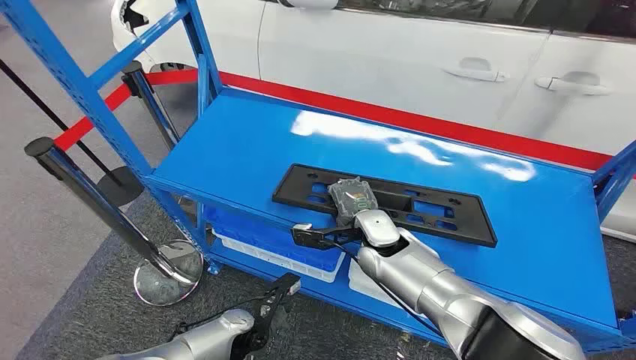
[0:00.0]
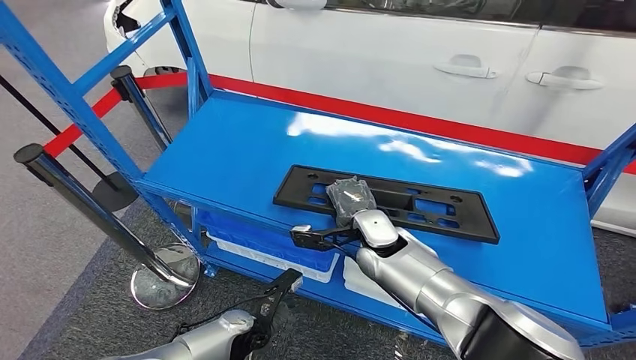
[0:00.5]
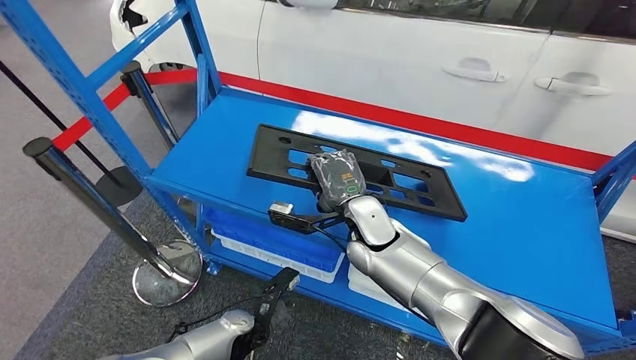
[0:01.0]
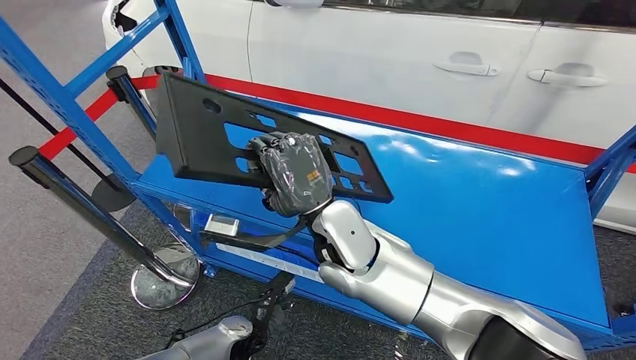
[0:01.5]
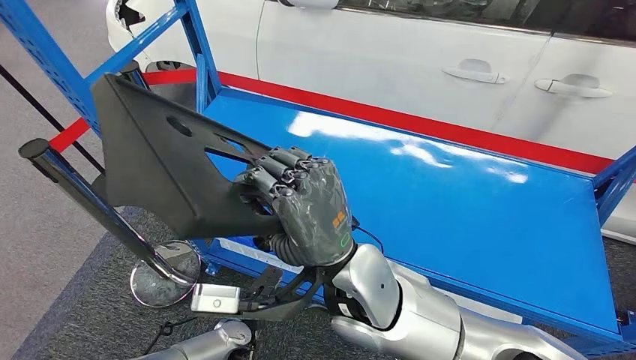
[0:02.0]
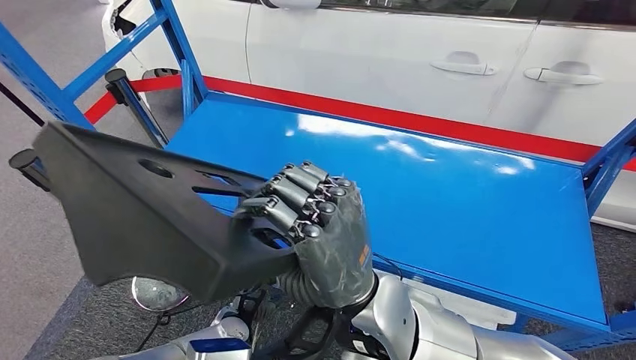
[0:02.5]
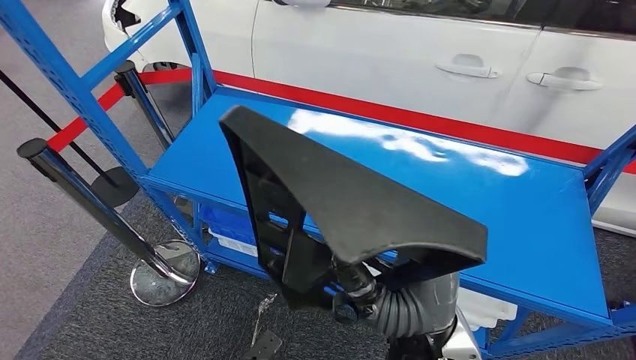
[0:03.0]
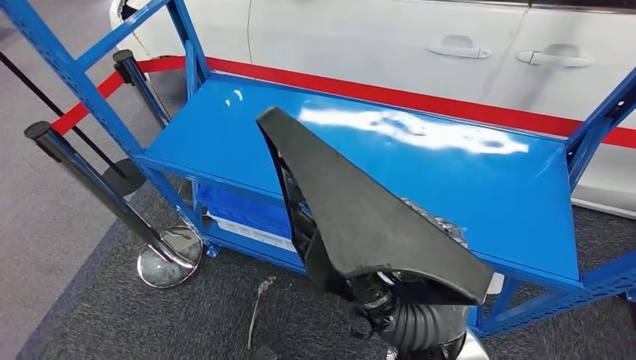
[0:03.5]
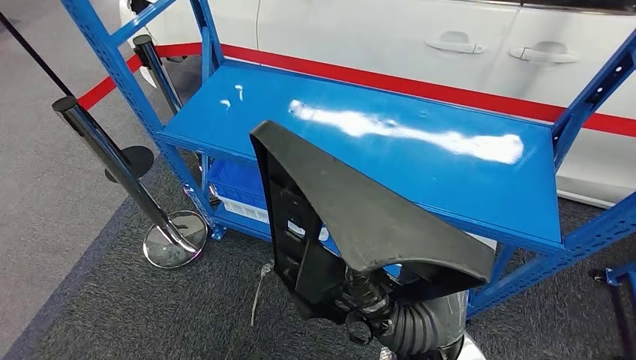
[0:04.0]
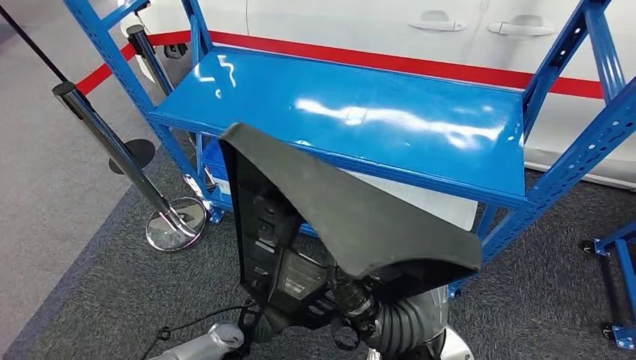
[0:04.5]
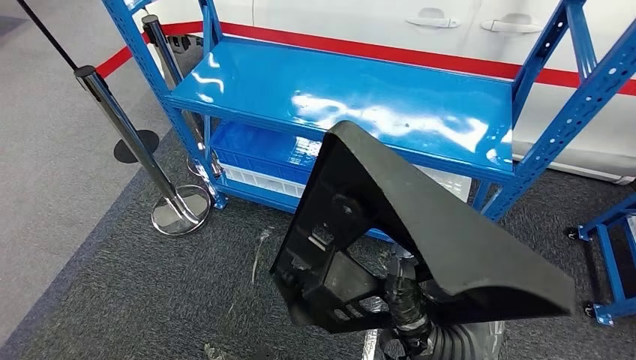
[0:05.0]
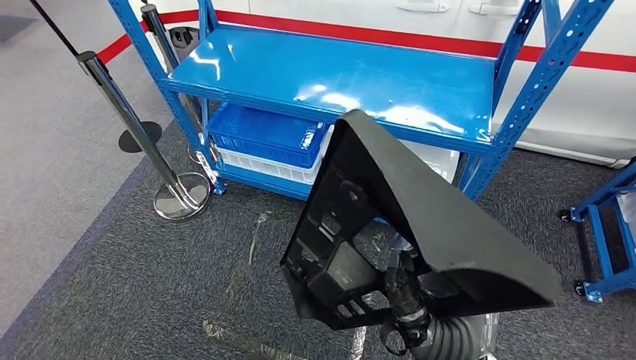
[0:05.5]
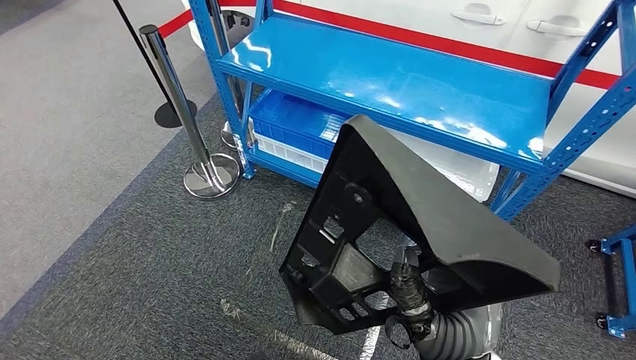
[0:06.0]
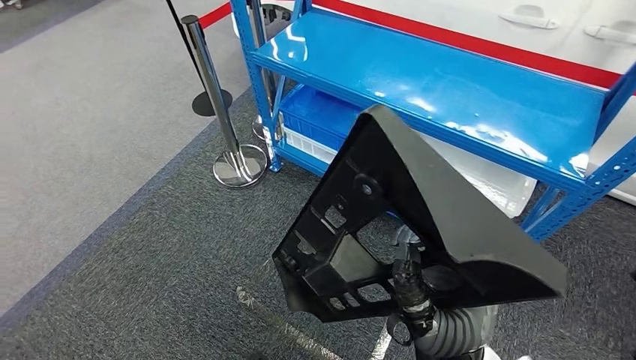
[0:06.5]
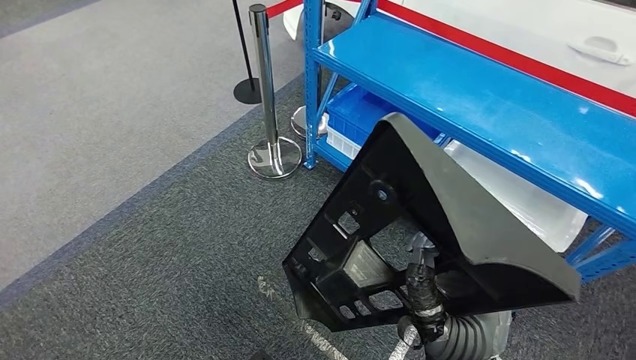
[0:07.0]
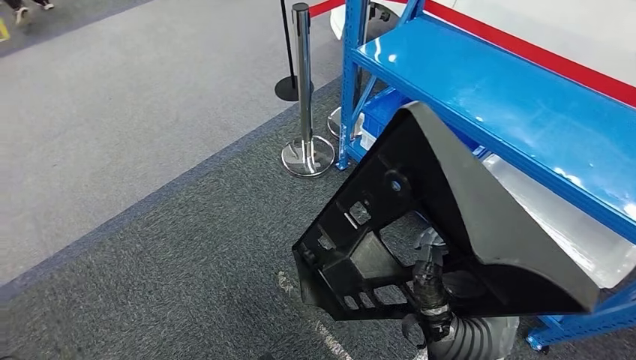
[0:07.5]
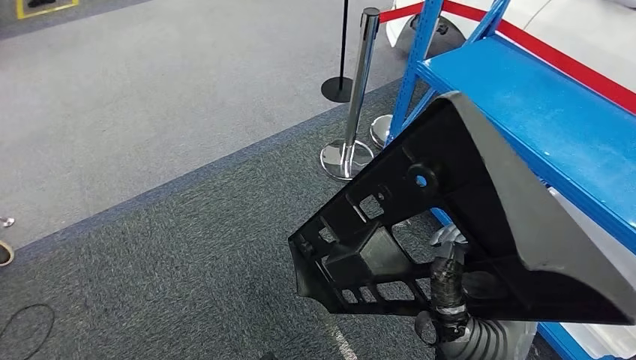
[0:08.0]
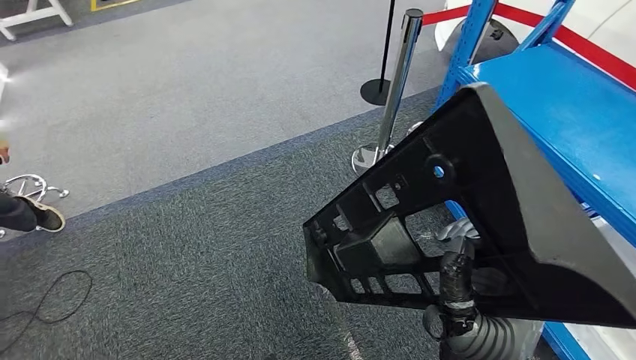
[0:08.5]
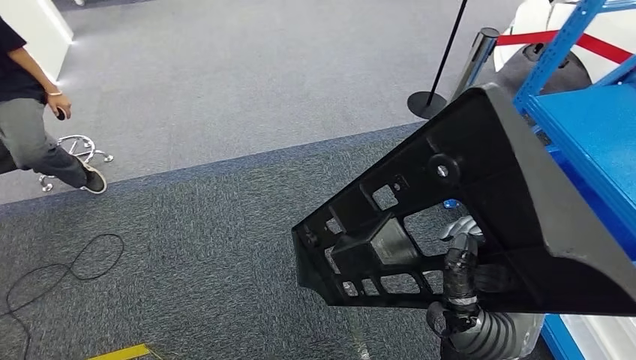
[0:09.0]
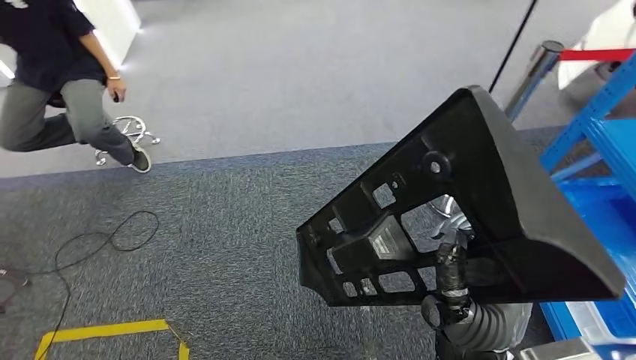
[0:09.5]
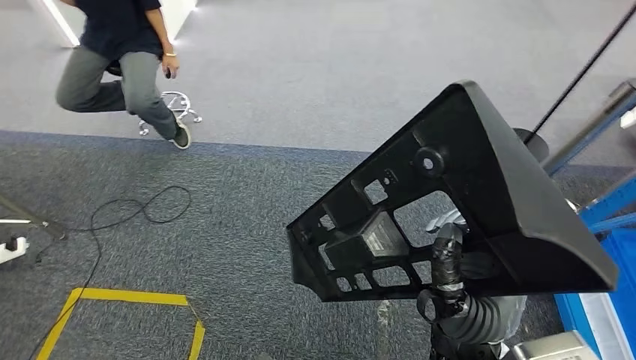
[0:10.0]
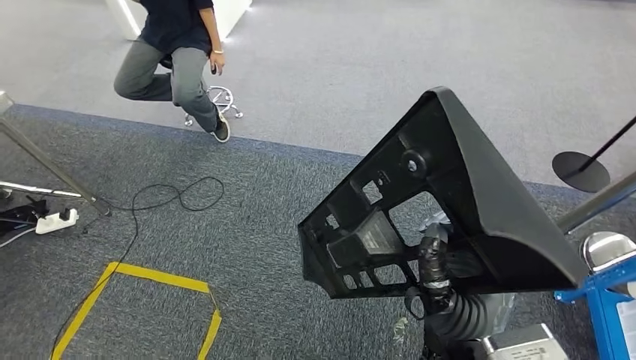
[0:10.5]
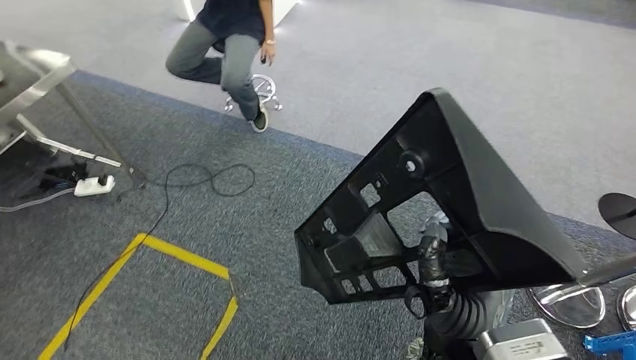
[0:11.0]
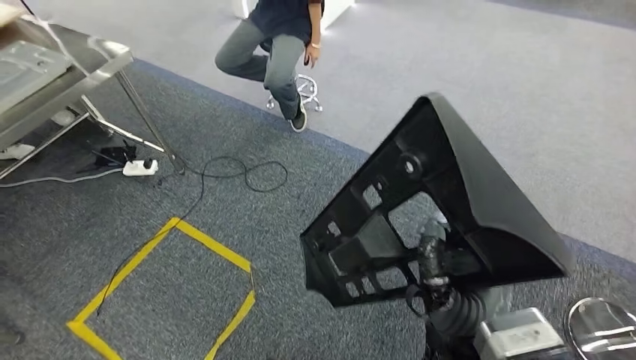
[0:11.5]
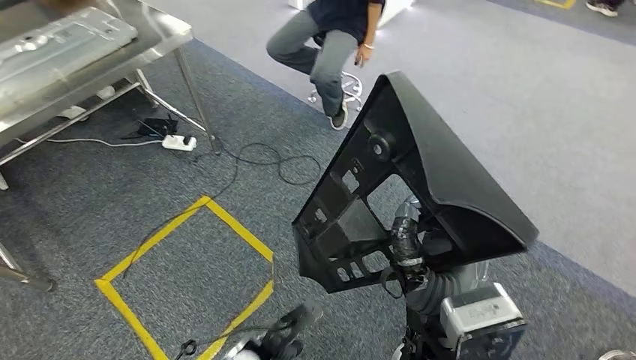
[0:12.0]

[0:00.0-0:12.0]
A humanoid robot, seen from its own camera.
Step, 0:00.0 to 0:03.5: Pick up the large material from the shelf.

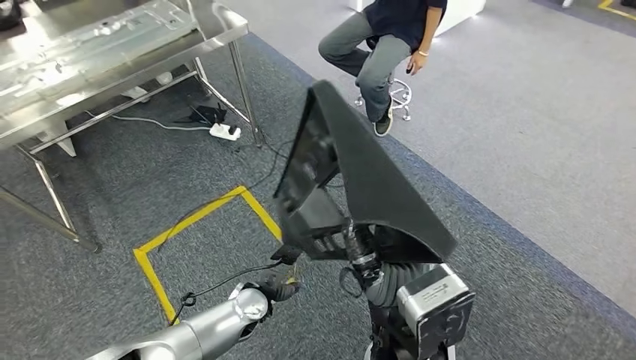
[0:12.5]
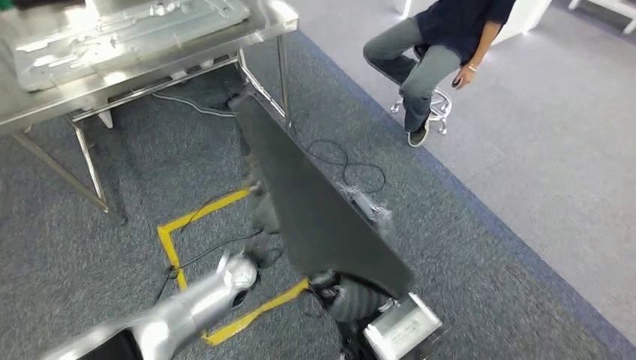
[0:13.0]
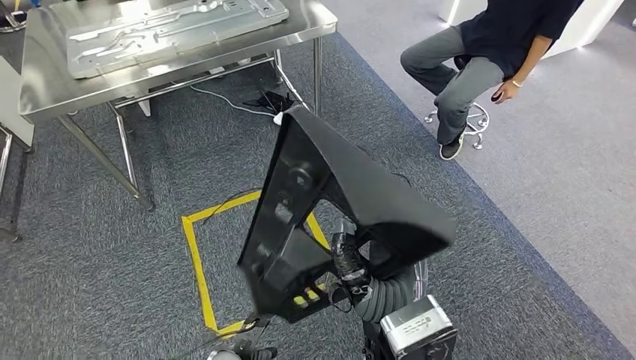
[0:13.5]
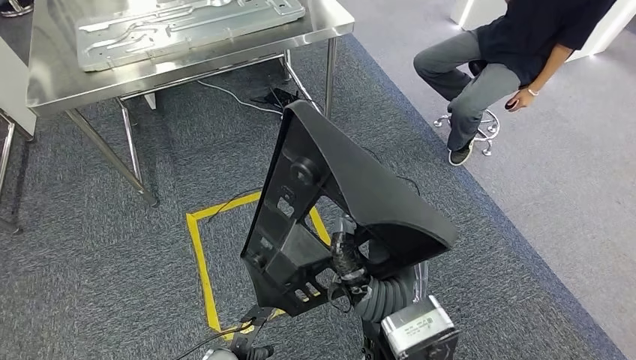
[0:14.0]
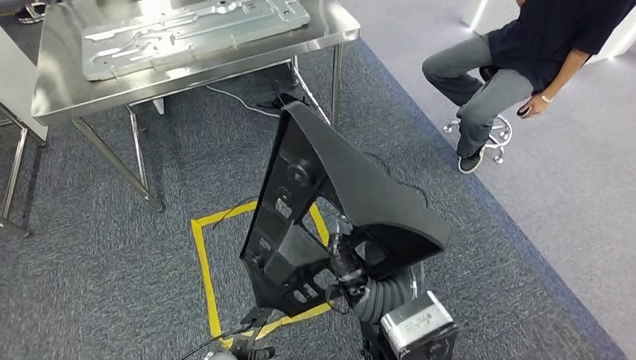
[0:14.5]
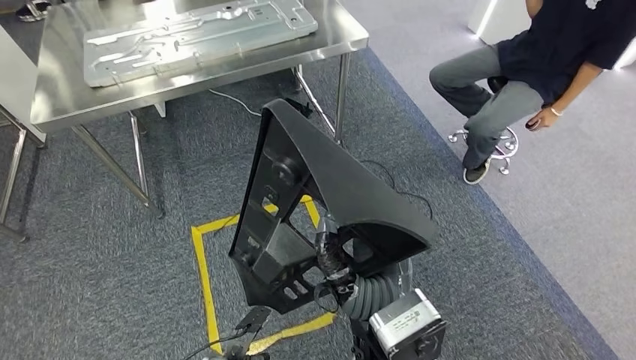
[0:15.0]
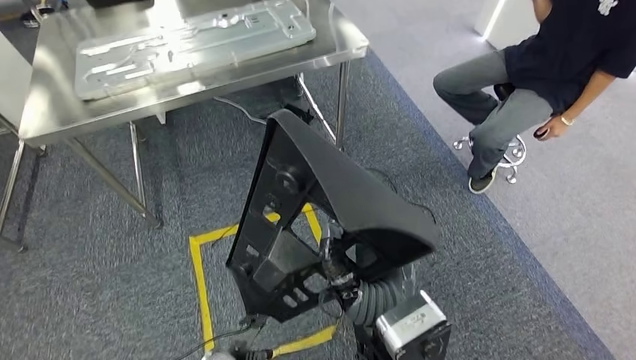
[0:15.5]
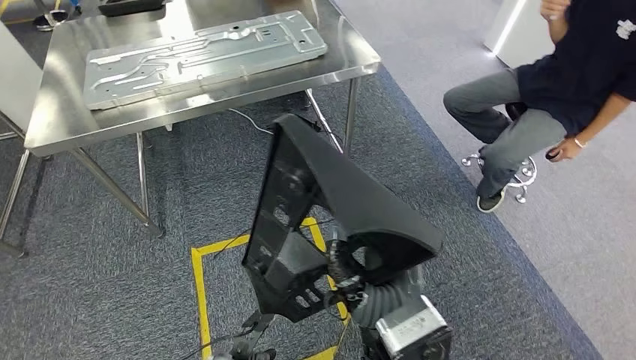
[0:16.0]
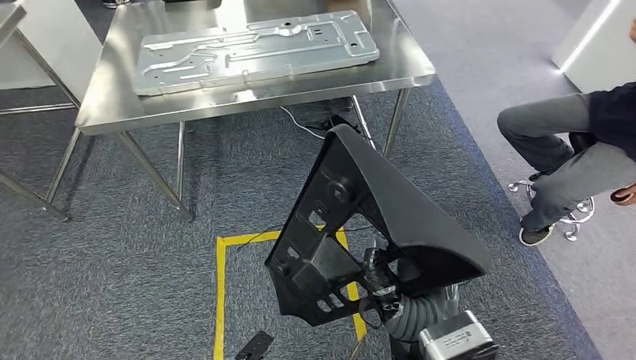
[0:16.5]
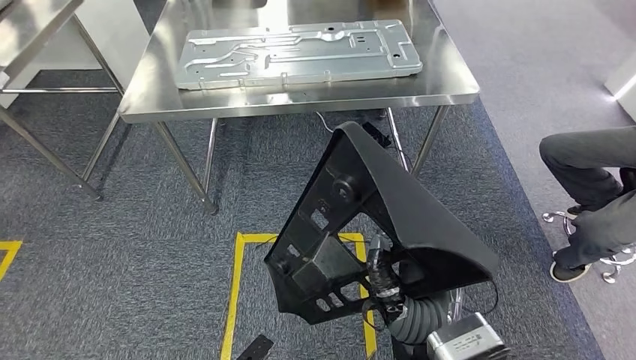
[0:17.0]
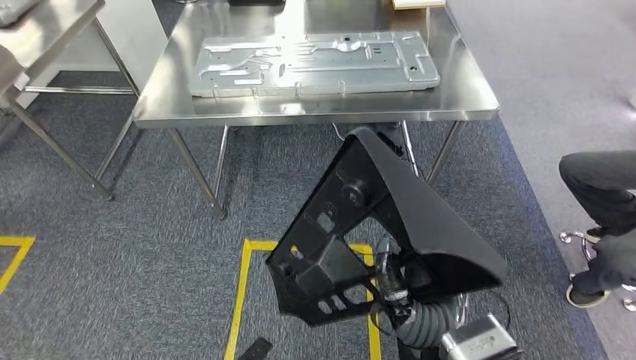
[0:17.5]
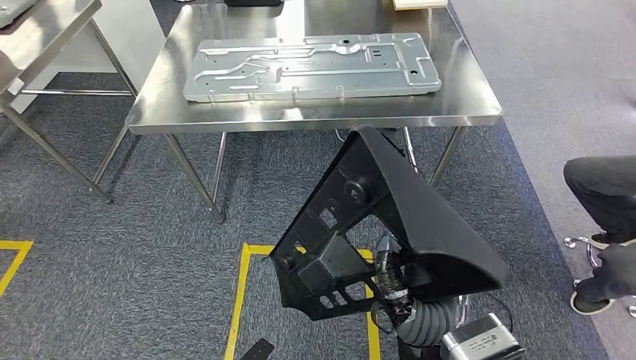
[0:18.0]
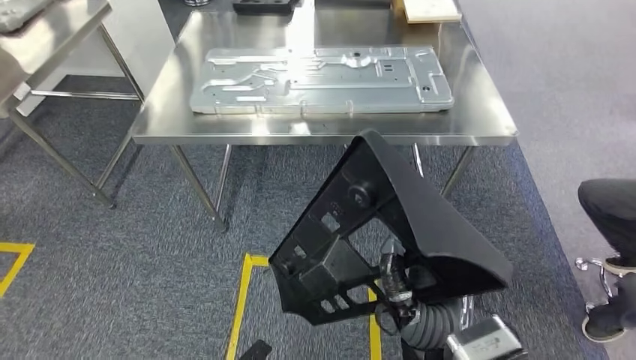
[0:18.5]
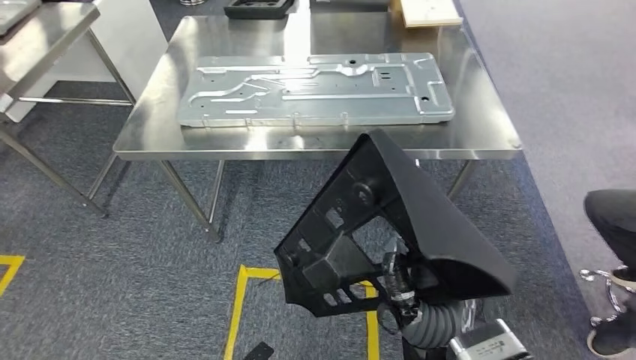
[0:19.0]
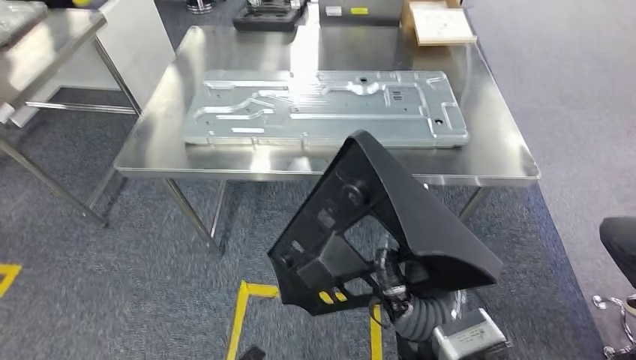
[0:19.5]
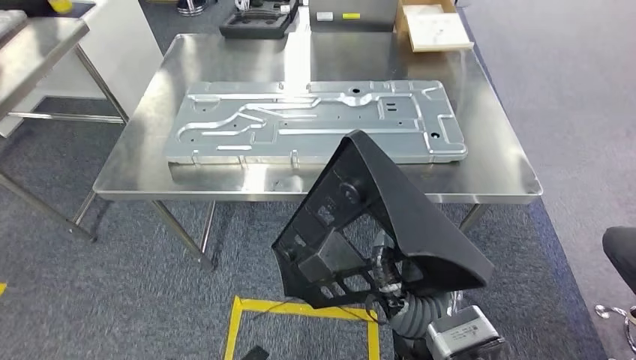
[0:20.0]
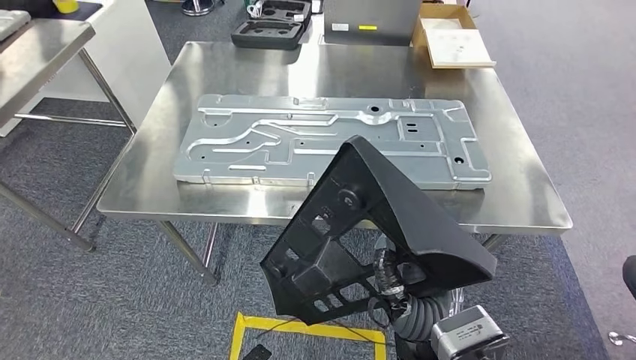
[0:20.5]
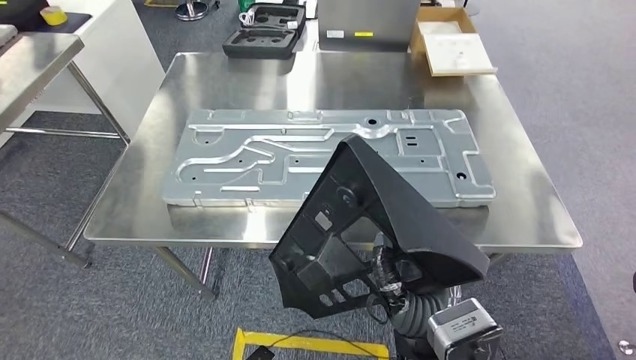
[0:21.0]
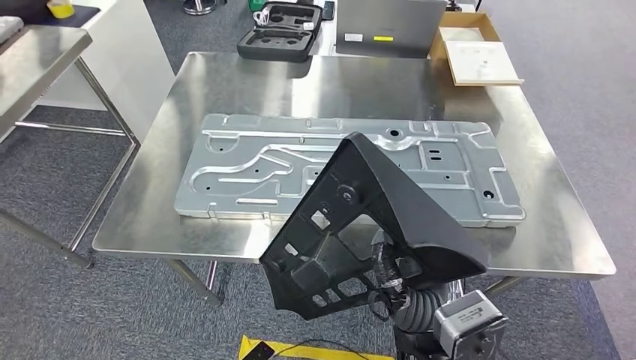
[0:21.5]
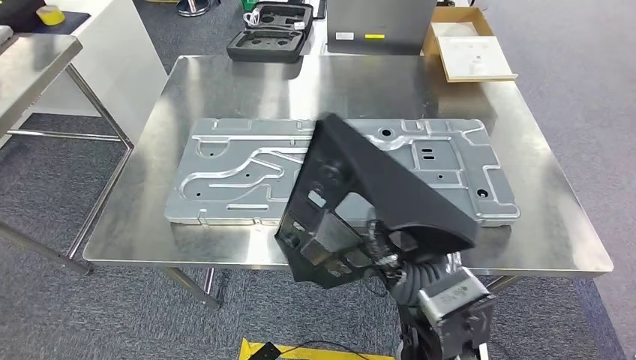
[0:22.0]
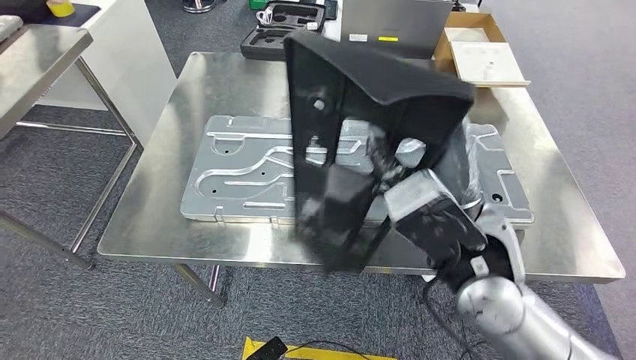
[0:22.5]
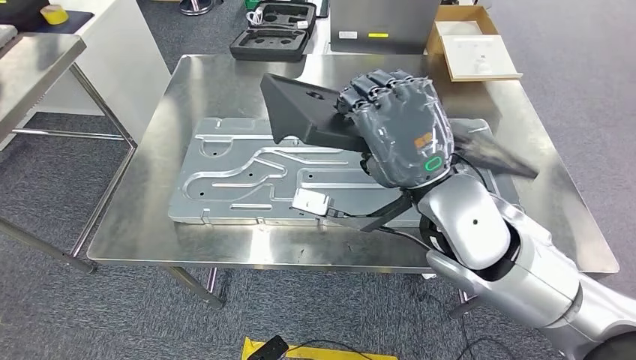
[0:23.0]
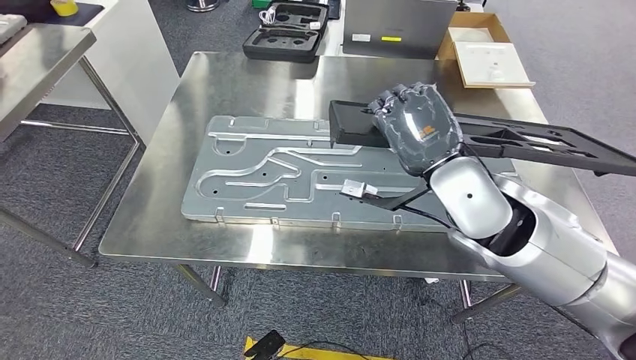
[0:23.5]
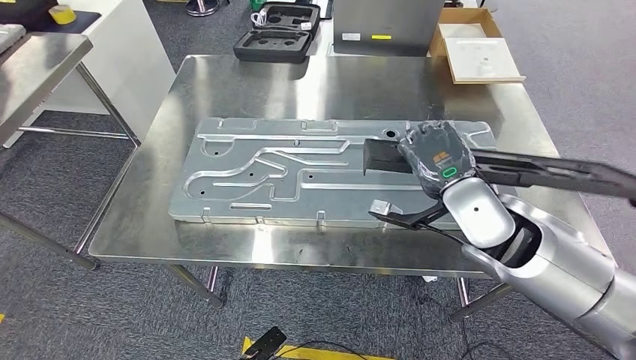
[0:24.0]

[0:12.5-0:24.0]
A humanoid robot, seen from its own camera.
Step, 0:12.5 to 0:19.5: Move the large material to the workbench.
